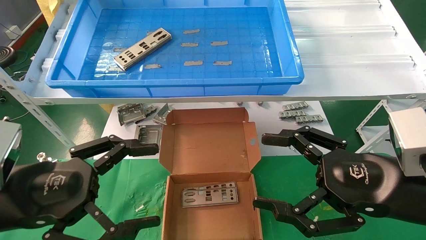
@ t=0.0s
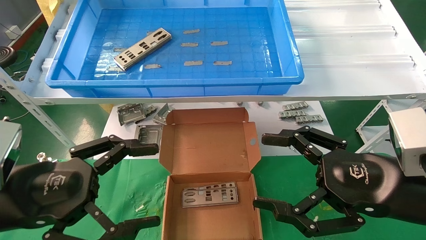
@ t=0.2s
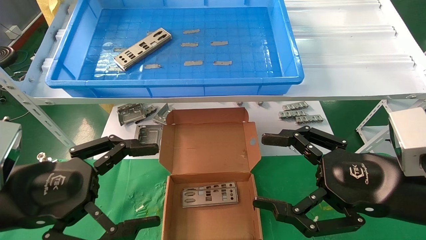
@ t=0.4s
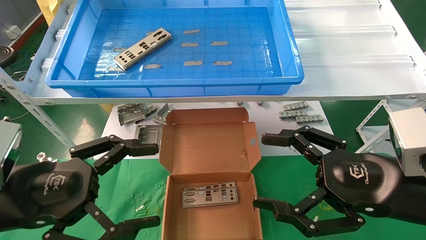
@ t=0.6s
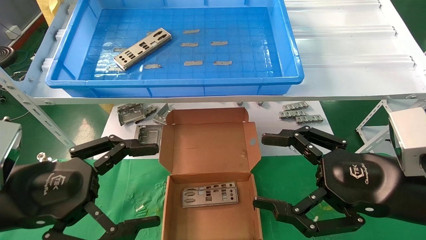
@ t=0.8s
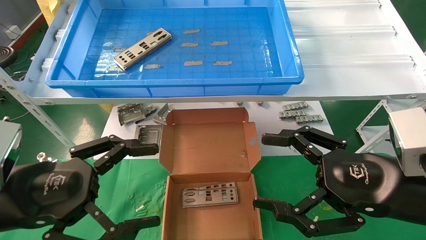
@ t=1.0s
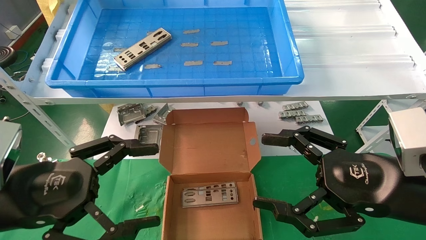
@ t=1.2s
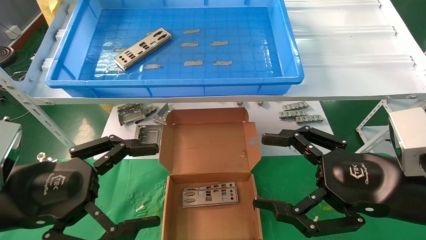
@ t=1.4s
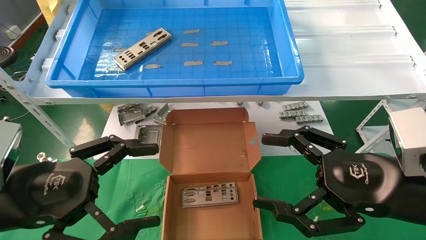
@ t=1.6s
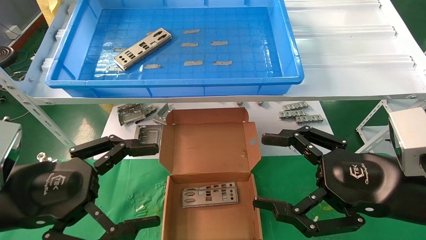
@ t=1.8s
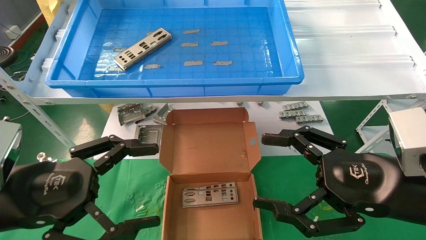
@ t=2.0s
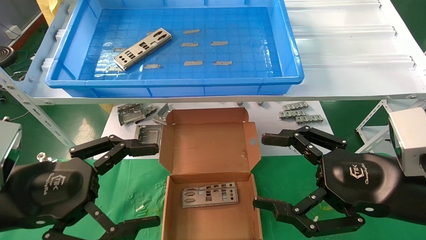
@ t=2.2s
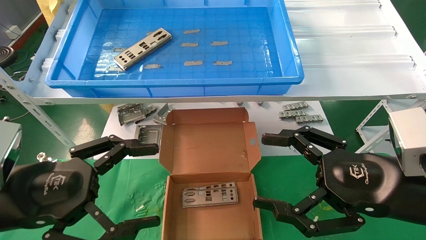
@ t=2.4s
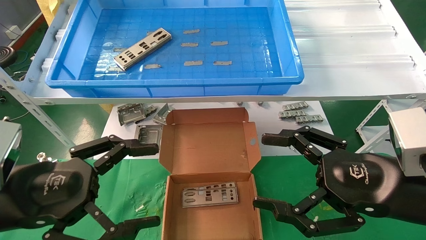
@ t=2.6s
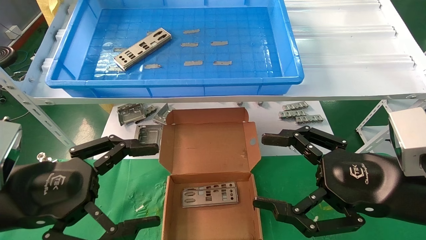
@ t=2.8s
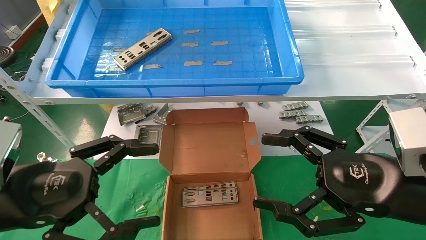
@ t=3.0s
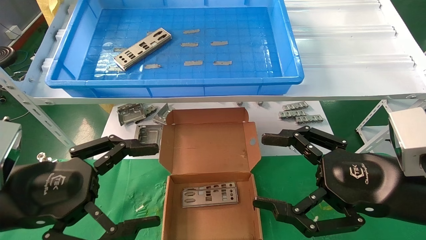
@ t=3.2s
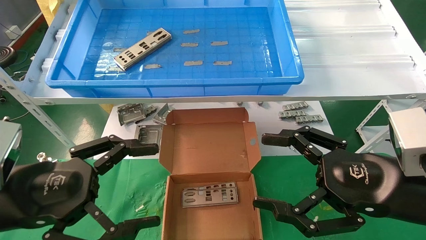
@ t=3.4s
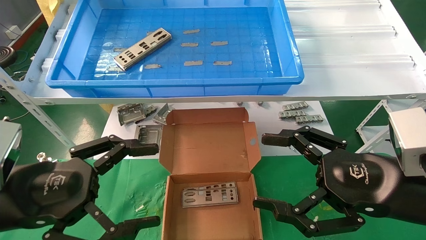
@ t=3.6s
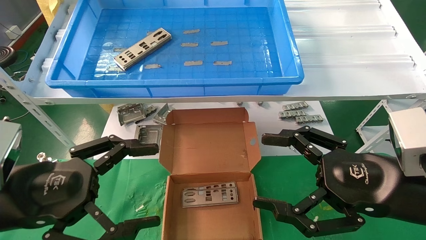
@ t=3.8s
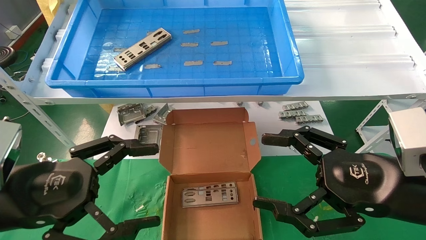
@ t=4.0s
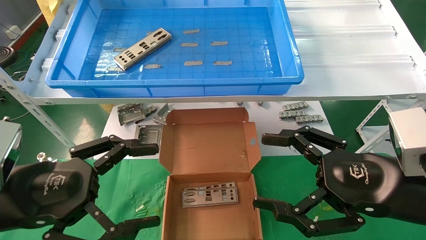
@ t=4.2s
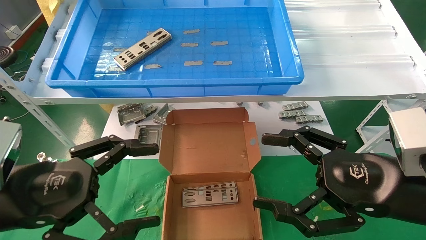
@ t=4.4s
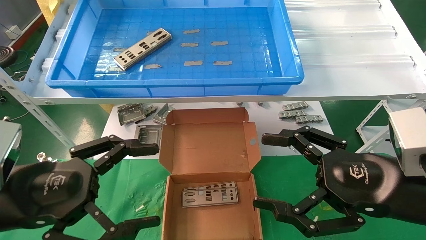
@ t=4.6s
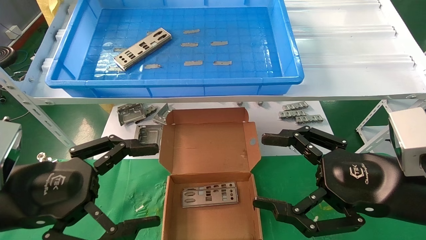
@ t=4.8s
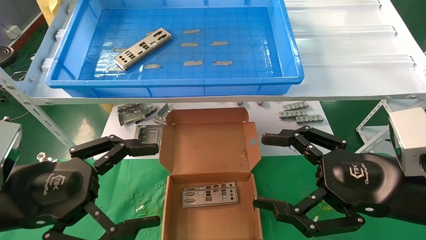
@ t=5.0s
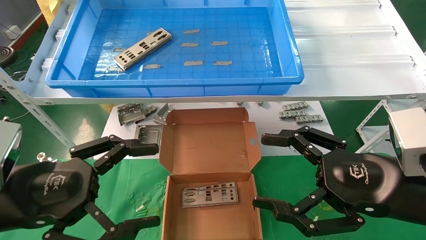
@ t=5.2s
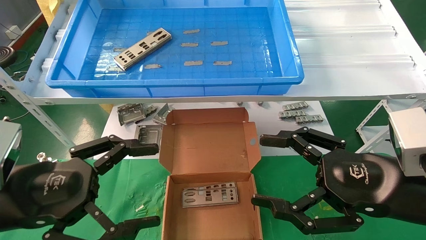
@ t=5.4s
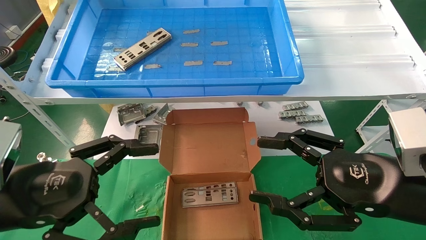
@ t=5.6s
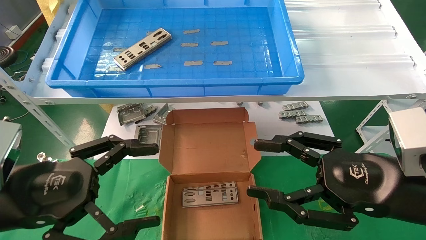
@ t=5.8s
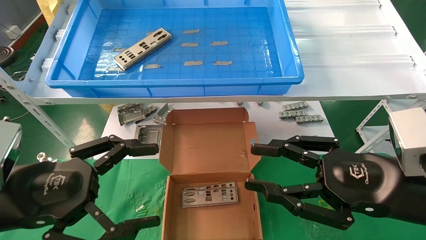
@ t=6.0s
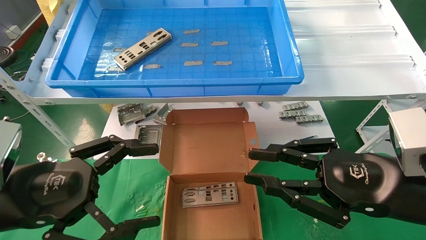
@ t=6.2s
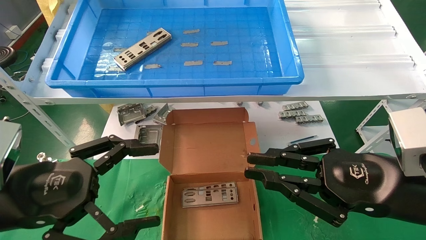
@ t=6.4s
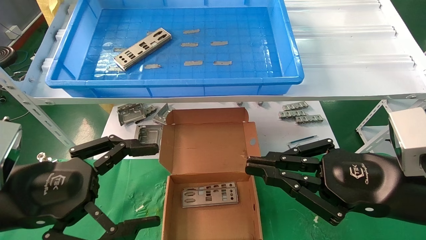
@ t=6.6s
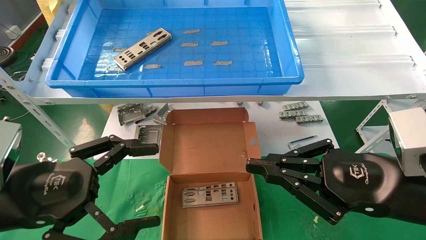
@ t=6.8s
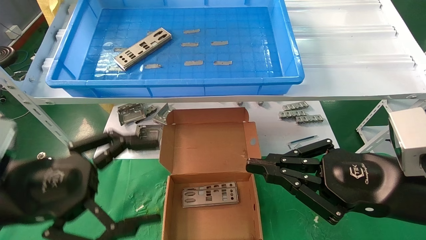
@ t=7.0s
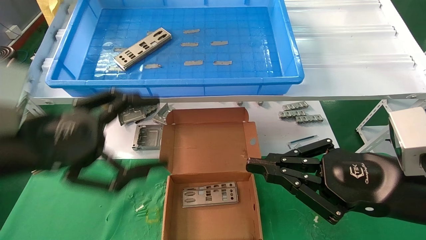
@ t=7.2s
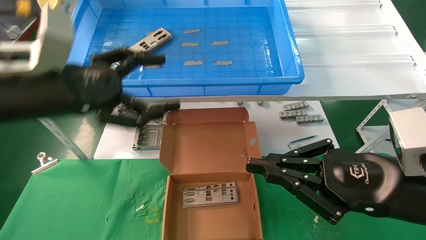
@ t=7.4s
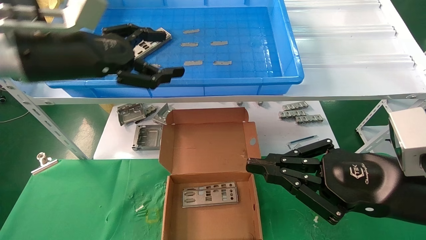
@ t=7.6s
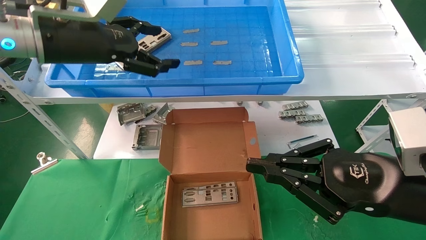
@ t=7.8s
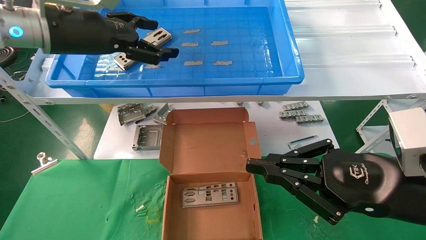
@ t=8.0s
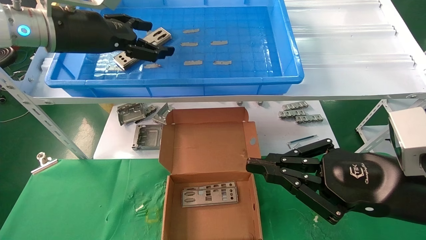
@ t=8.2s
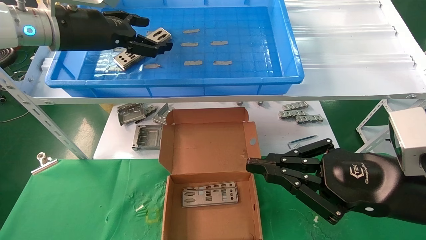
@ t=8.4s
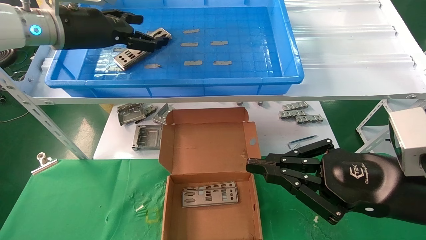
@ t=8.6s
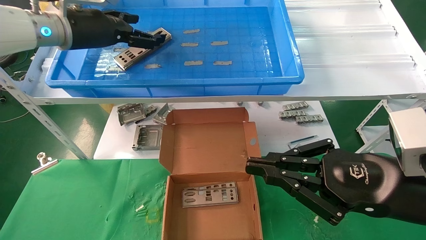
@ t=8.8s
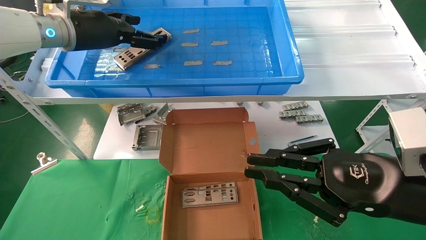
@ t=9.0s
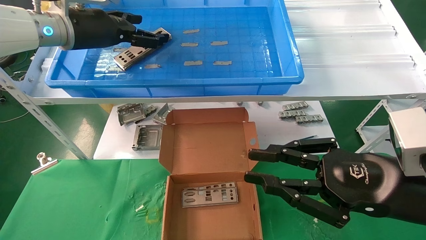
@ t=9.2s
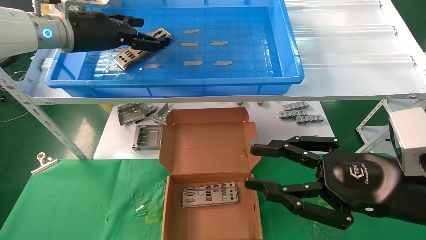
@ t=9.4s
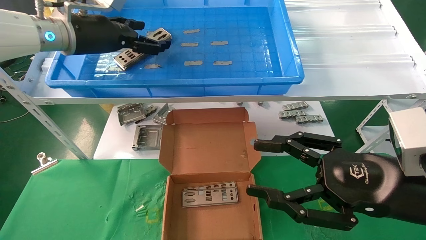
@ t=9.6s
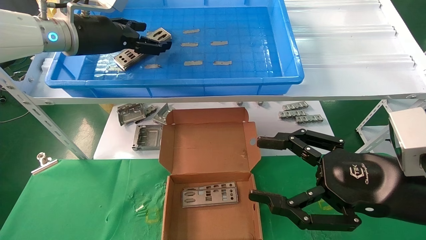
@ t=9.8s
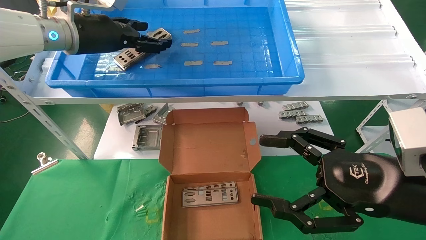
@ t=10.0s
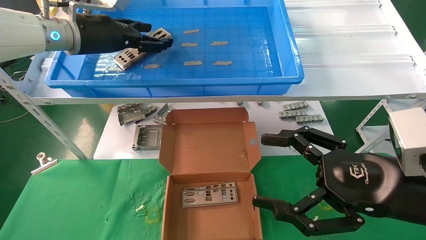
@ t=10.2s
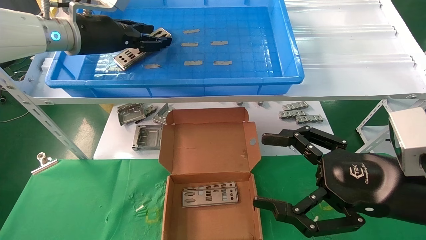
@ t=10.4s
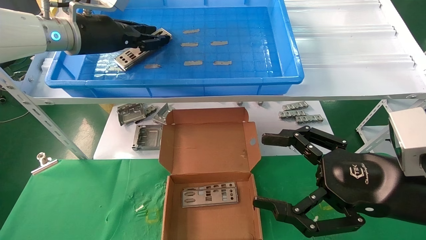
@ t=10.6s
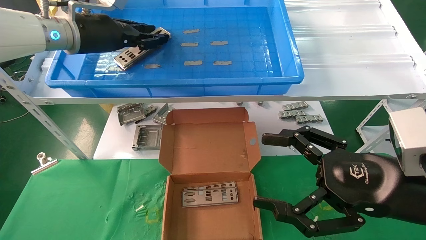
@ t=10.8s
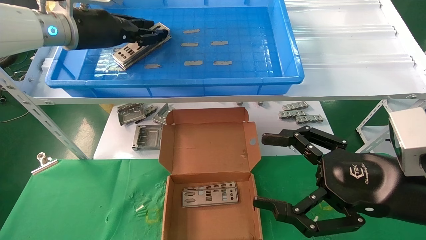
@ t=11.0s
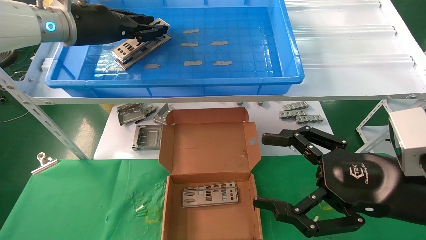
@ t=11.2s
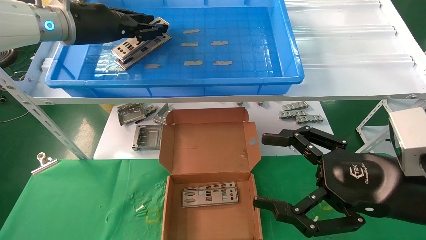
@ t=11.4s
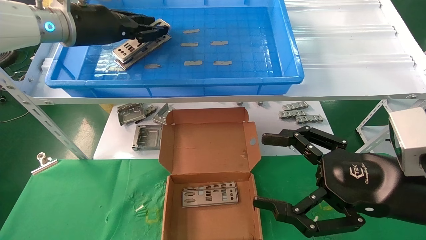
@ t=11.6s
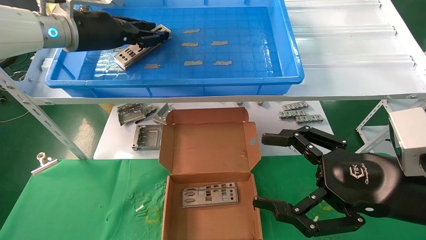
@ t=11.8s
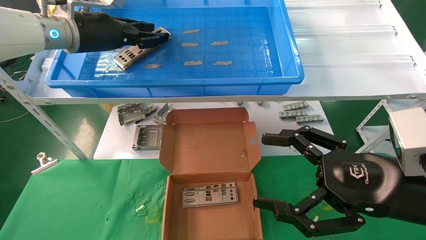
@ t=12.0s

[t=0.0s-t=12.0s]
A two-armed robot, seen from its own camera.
Task of the whole recording: pick up the parts on the tray and put them in the cardboard box.
t=0.0s to t=4.4s: Both grippers stay put.
t=4.4s to t=6.0s: The right gripper closes its fingers.
t=6.0s to t=7.6s: The right gripper closes, while the left gripper moves upward and forward, some 20 cm.
t=7.6s to t=9.0s: The left gripper goes approximately 10 cm forward.
t=9.0s to t=10.4s: The left gripper closes its fingers; the right gripper opens up.
t=10.4s to t=12.0s: The grippers move only a little.

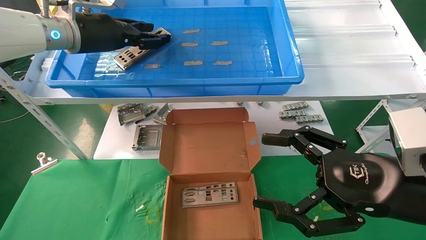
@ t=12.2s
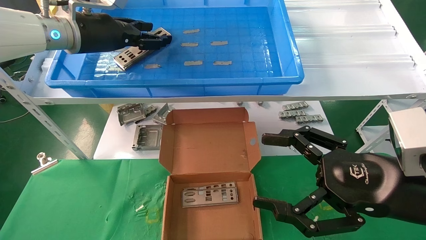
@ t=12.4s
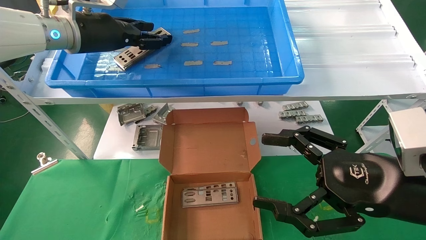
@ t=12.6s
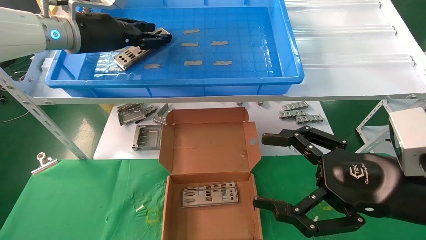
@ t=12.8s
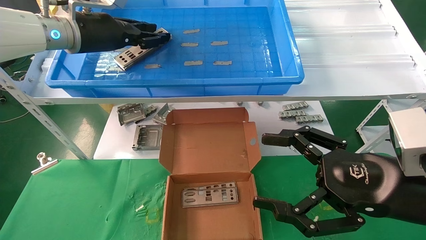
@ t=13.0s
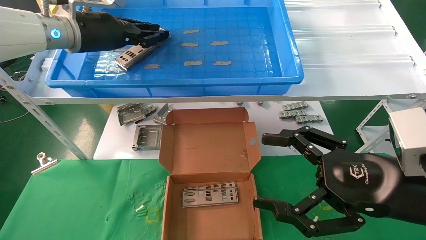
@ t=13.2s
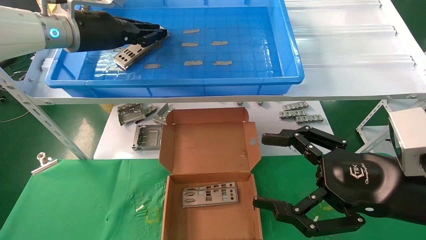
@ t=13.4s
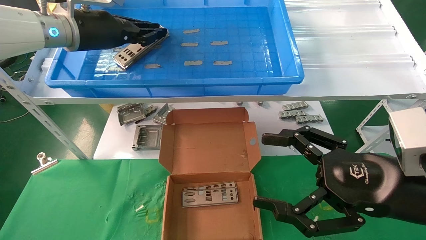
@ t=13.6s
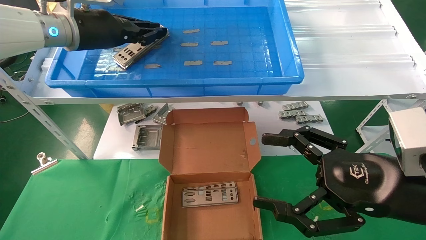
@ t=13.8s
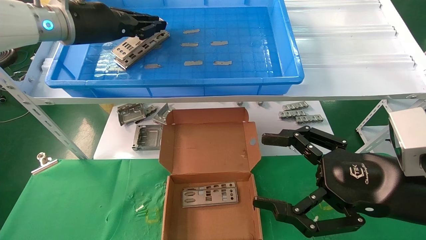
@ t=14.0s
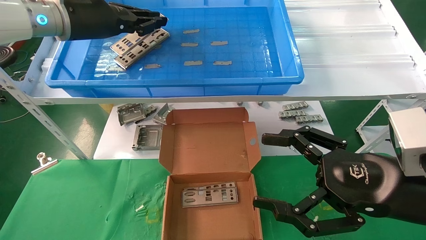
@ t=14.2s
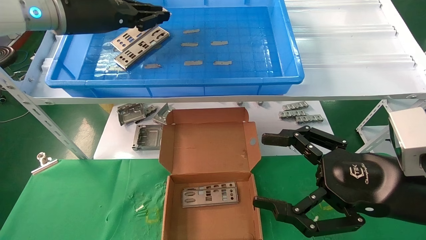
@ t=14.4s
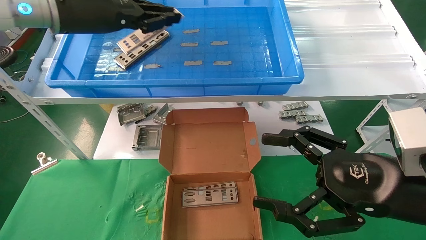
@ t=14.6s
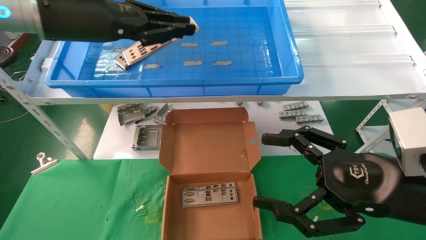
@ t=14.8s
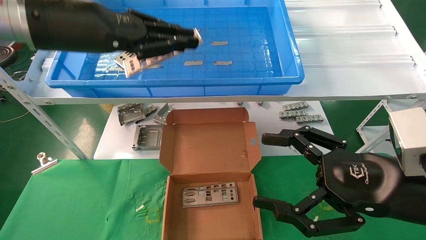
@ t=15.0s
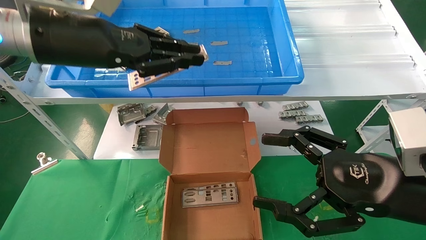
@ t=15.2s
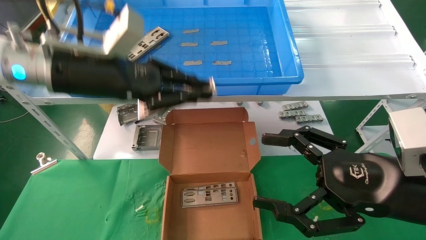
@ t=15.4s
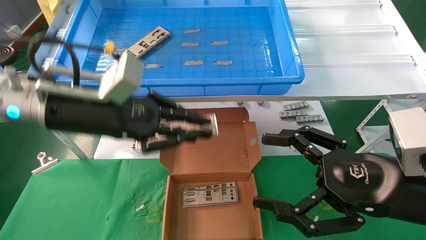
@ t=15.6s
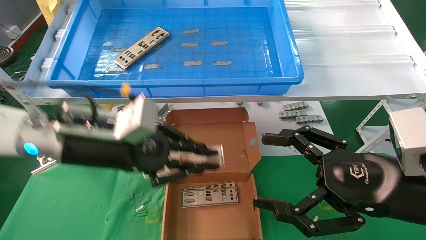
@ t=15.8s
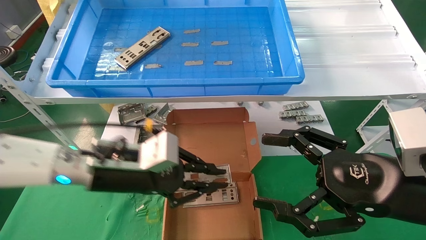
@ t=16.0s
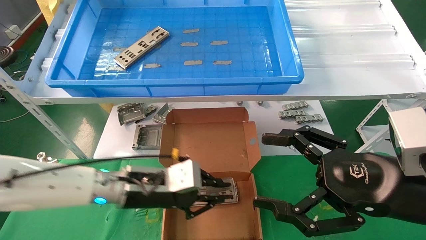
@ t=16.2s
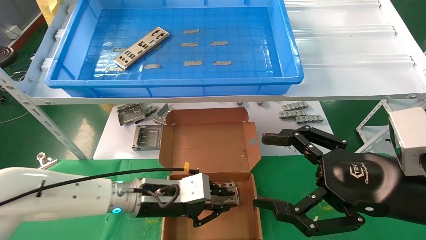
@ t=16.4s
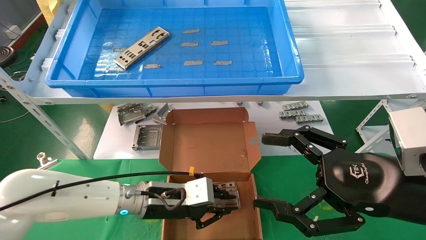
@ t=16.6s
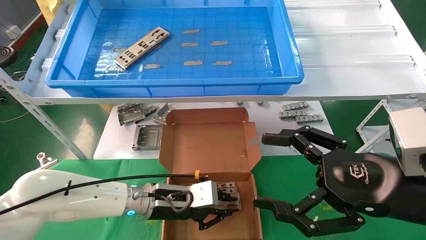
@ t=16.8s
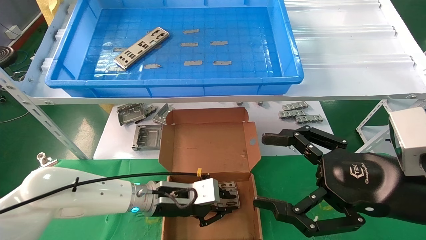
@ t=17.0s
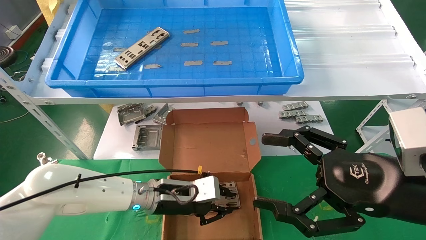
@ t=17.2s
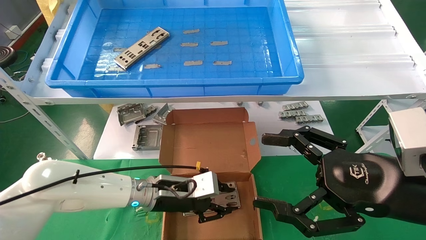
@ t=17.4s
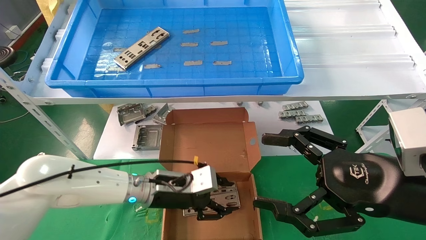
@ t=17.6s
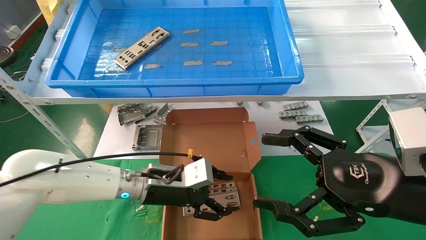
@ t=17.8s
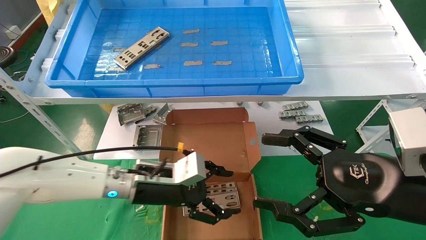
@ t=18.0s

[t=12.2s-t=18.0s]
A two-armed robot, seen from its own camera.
Task of the whole recording: pick up the parts on the tray and put them in the cardboard box.
Step, t=12.2s to t=14.2s: Pick up the IO bracket from the container box.
Step, t=14.4s to t=17.2s: Place the IO bracket into the ingredient slot.
t=12.2s to t=13.6s: The left gripper closes.
t=13.6s to t=15.0s: The left gripper moves backward, about 10 cm.
t=15.0s to t=16.6s: The left gripper is displaced downward by some 30 cm.
t=16.6s to t=18.0s: The left gripper opens up.
